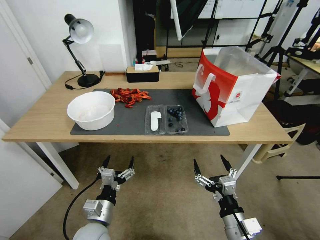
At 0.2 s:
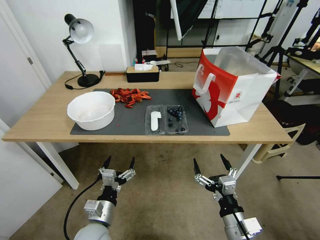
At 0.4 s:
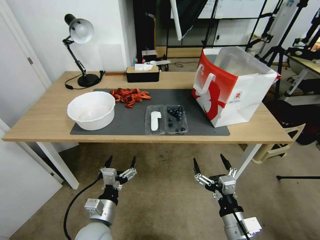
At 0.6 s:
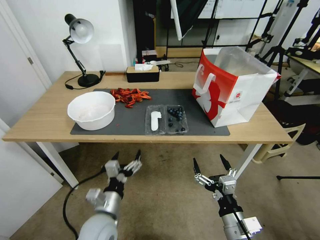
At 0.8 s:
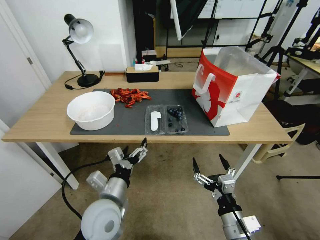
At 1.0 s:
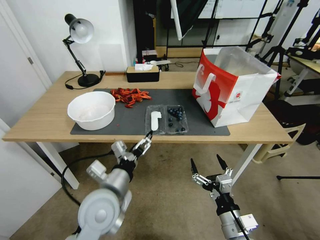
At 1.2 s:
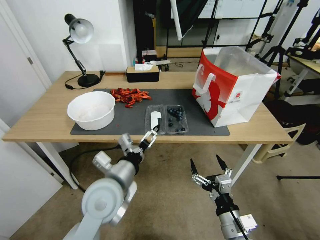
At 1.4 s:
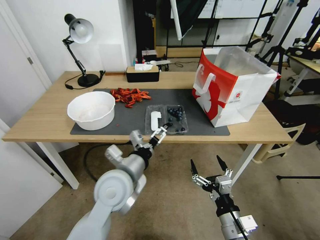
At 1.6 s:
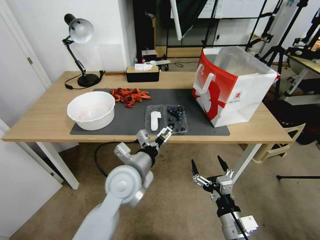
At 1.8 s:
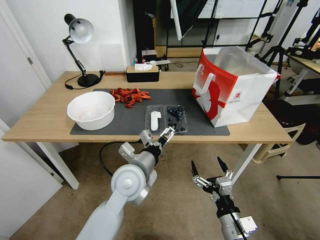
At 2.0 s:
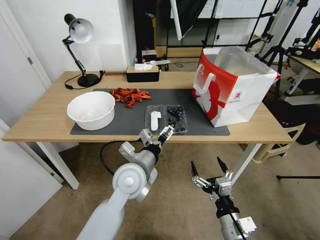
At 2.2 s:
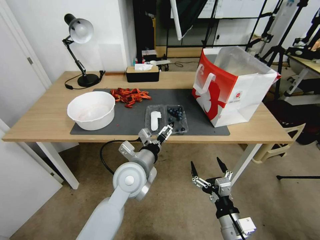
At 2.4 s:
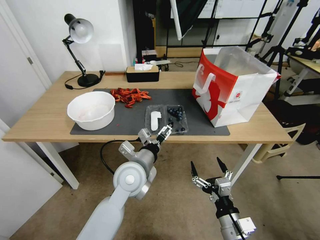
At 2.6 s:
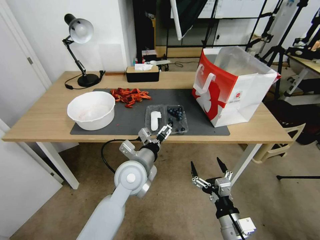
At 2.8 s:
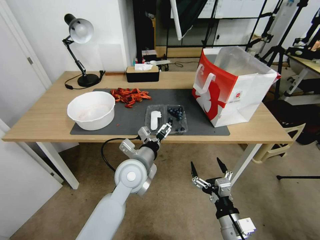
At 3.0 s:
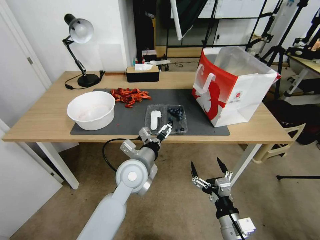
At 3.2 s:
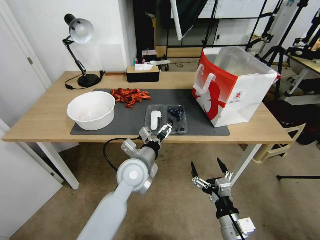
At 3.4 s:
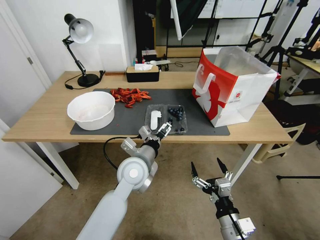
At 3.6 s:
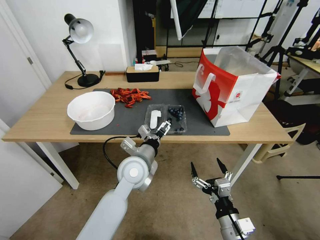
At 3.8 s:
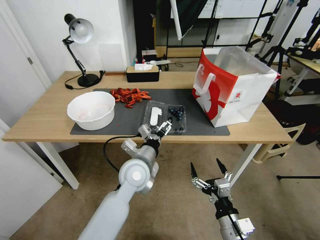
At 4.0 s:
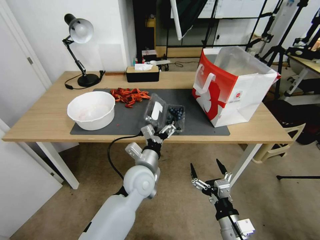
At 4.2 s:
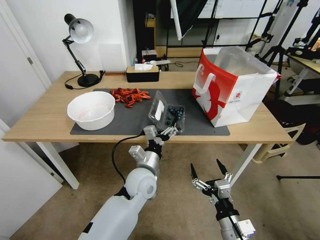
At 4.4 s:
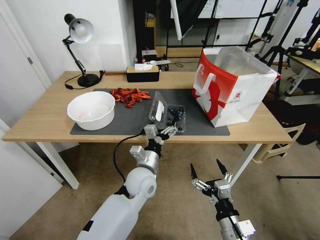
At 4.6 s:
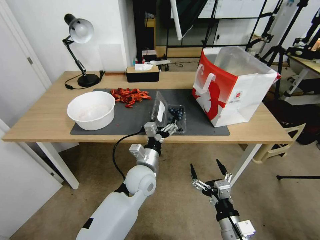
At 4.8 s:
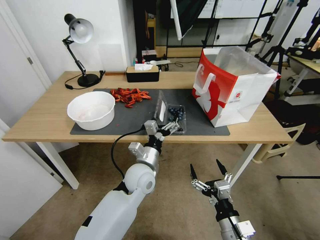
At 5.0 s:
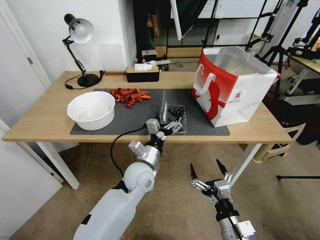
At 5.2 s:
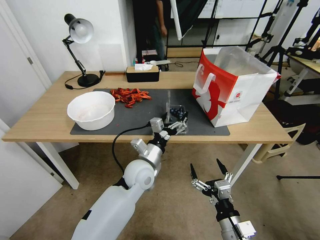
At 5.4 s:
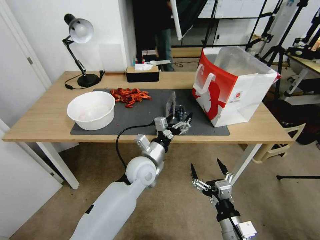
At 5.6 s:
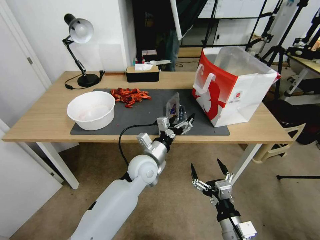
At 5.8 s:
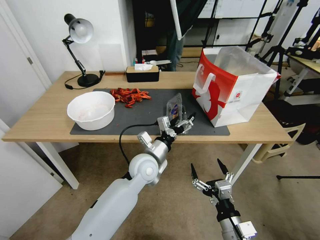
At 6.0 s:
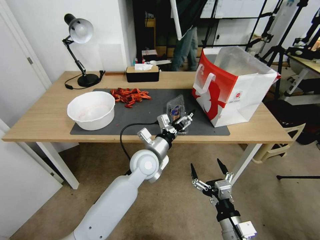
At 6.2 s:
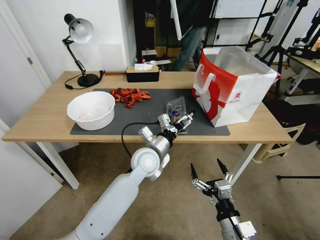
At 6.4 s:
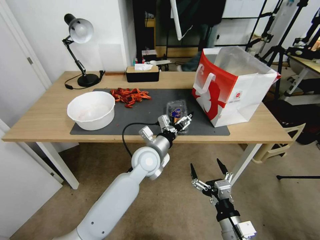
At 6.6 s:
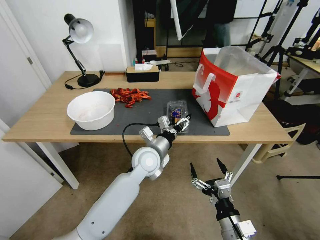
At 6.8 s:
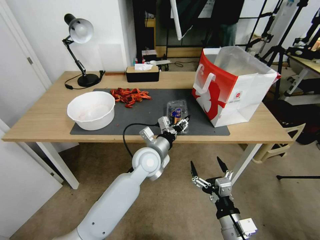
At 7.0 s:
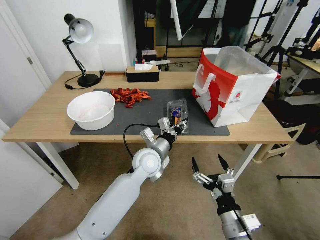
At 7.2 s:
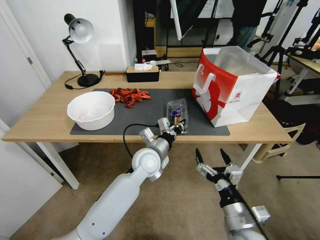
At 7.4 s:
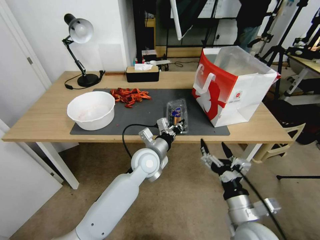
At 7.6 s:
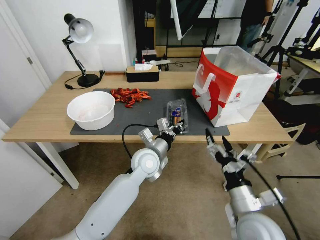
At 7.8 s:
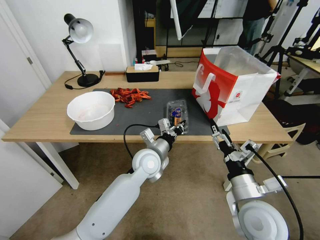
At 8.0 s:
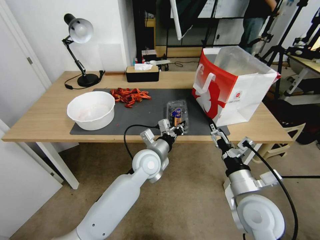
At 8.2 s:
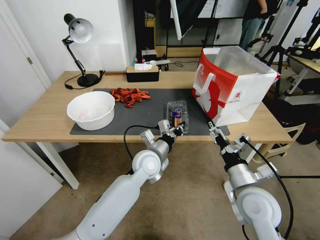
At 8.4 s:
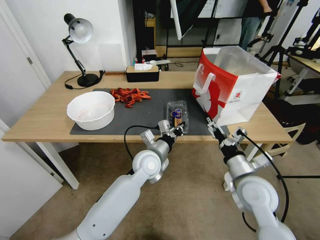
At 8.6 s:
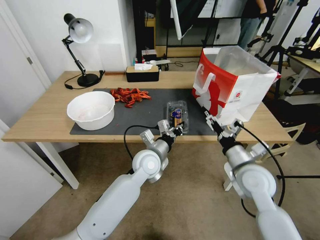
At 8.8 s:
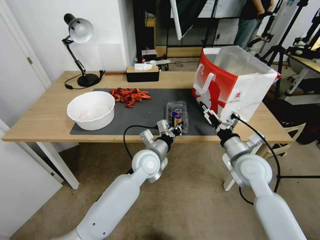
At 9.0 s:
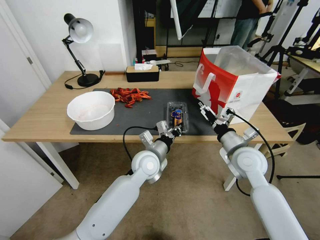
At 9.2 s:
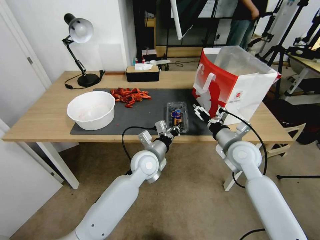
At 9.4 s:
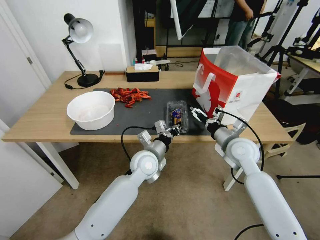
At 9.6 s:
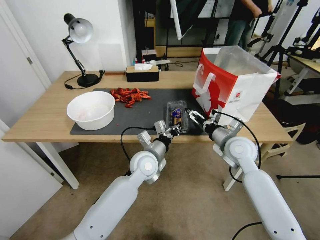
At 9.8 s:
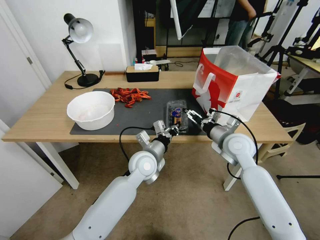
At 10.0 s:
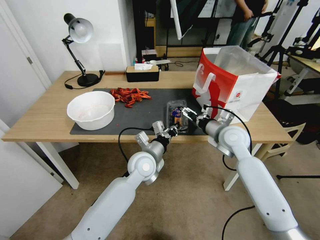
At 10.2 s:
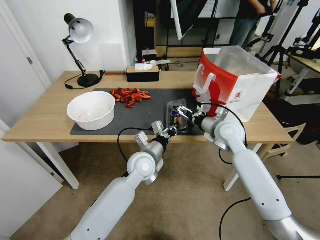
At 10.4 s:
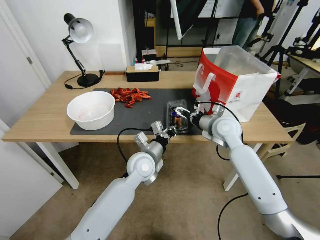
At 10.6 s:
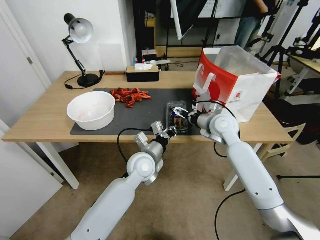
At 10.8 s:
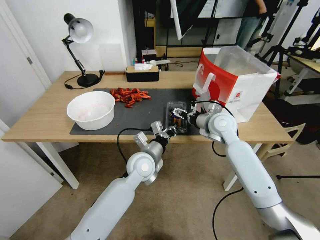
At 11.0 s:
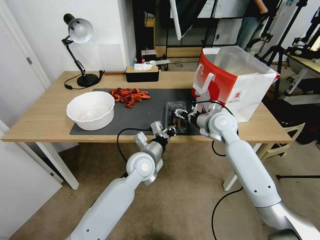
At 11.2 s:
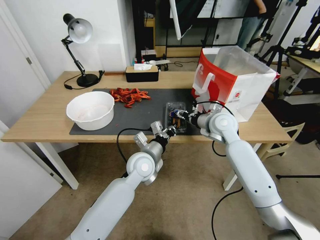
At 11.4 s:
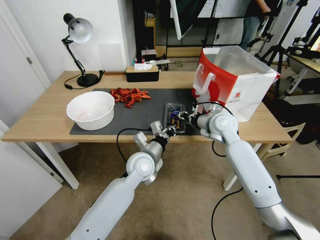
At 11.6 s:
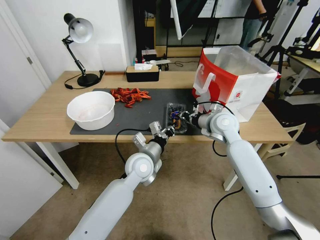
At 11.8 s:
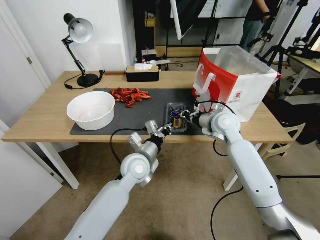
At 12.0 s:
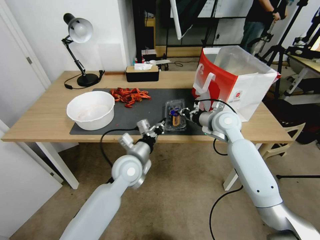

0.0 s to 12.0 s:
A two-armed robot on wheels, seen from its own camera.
Task of the whole recording: Close the takeout container lid, then place the container into the takeout bag.
0.0 to 1.6 s: The left gripper moves upward, forward and to the right, about 20 cm.
1.6 to 3.0 s: The left gripper changes place by about 5 cm.
3.0 to 4.4 s: The left gripper goes approximately 5 cm downward.
4.4 to 6.0 s: The left gripper moves about 5 cm.
6.0 to 7.6 s: The right gripper travels upward and forward by about 10 cm; the left gripper closes up.
7.6 to 9.0 s: The right gripper is displaced forward by some 15 cm.
9.0 to 10.4 s: The right gripper moves forward, about 10 cm.
10.4 to 12.0 s: The left gripper shifts by about 5 cm. Meanwhile the right gripper closes.

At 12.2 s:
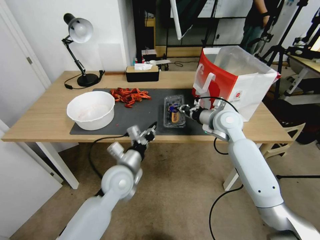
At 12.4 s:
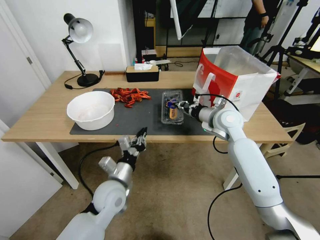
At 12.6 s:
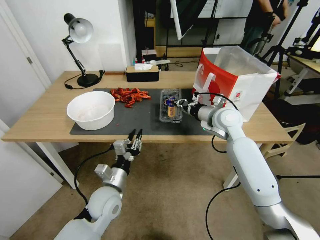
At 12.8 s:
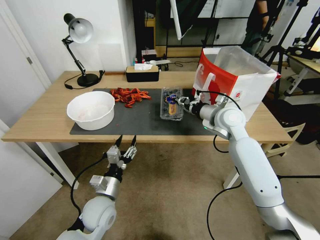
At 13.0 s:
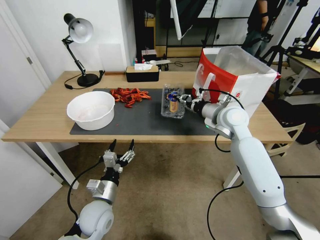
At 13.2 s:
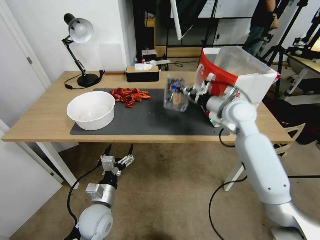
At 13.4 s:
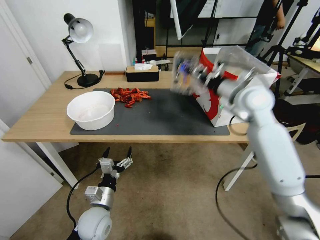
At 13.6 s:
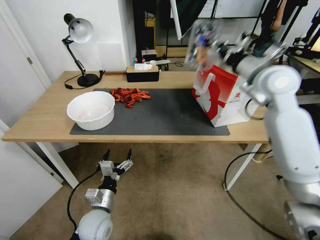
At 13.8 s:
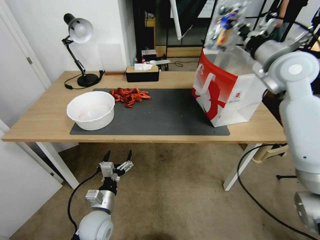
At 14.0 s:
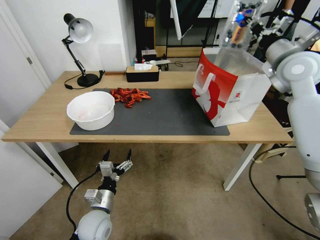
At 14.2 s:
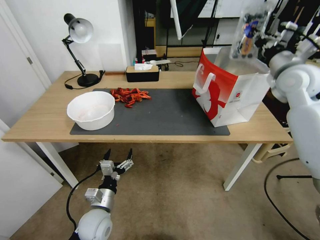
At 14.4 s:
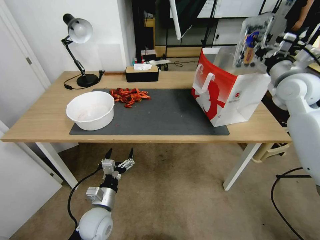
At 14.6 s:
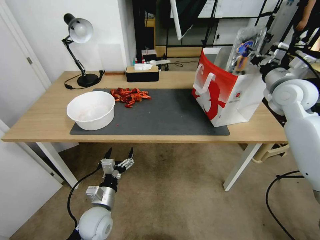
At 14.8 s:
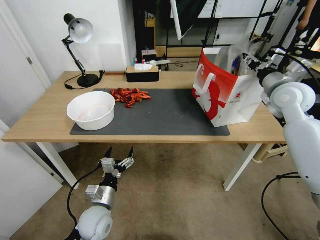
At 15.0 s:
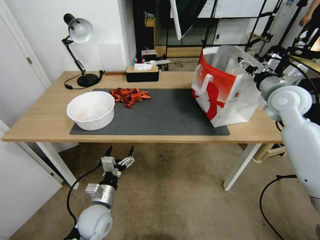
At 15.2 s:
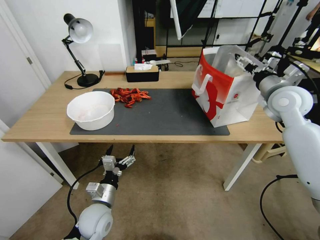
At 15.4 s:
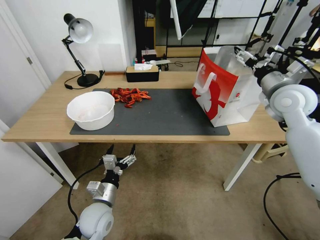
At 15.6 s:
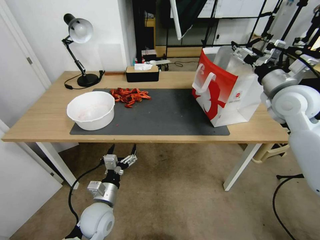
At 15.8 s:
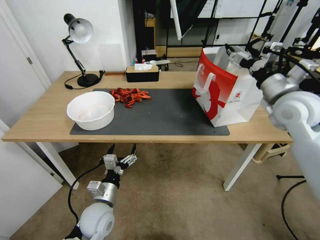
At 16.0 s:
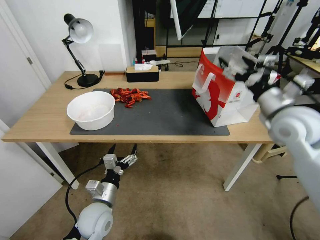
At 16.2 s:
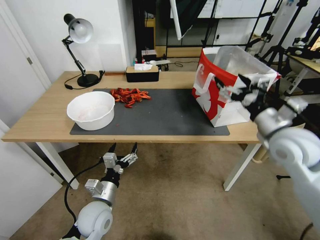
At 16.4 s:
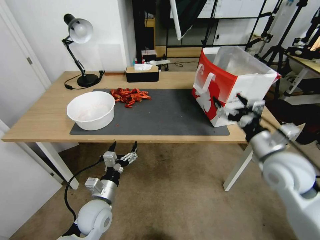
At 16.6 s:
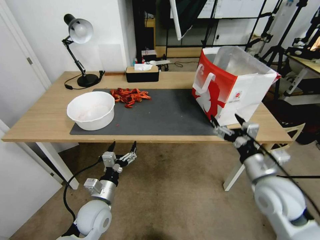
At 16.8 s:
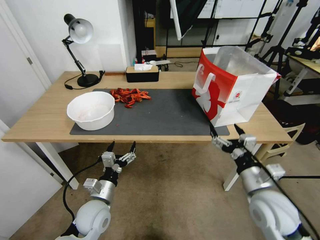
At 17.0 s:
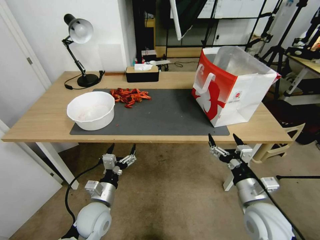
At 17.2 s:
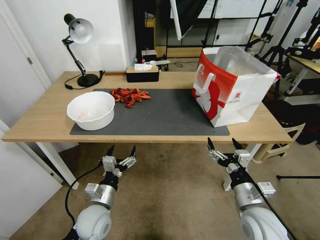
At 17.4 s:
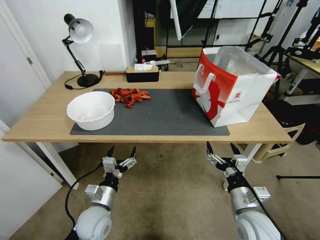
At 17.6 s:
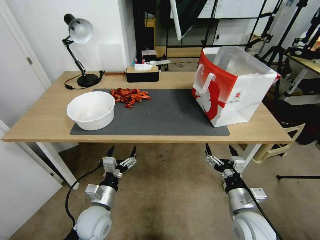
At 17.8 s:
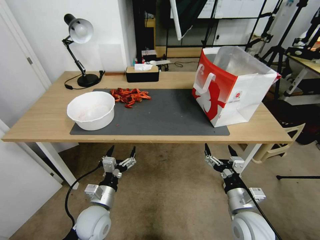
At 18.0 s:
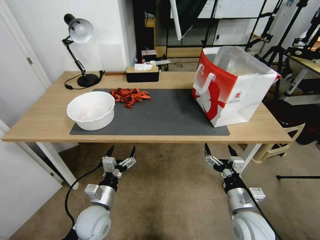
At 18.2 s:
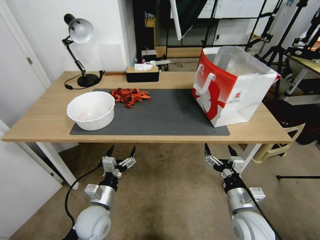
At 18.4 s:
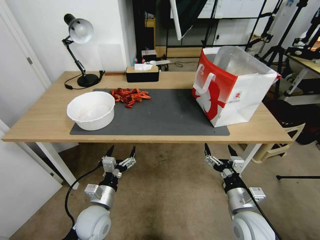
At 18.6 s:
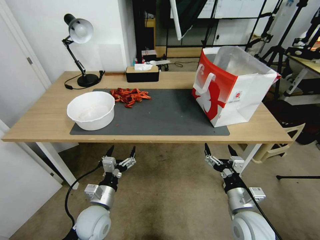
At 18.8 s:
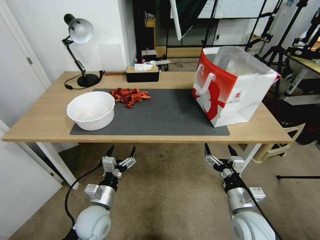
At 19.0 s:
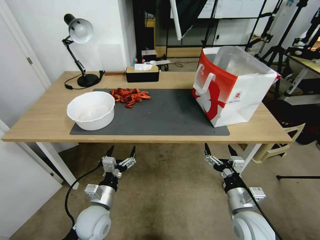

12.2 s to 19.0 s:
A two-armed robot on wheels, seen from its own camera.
Task of the whole recording: Close the takeout container lid, then place the container into the takeout bag.
12.2 to 13.6 s: The right gripper moves upward, some 15 cm, while the left gripper moves downward, backward and to the left, some 15 cm, and opens.
13.6 to 15.0 s: The right gripper is displaced to the right and downward by approximately 10 cm, and opens its fingers.
15.0 to 16.2 s: The right gripper travels backward by about 15 cm, and opens.
16.2 to 17.6 s: The right gripper goes about 25 cm downward and backward.
17.6 to 19.0 s: Both grippers stay put.
